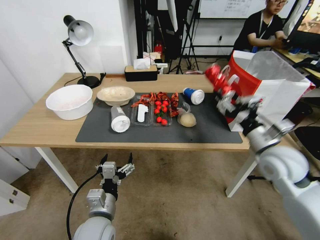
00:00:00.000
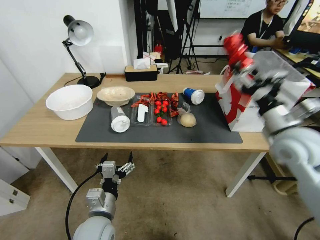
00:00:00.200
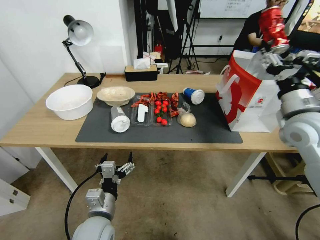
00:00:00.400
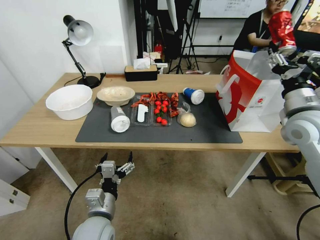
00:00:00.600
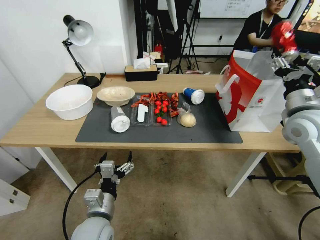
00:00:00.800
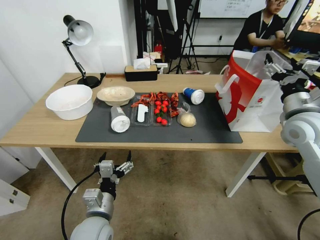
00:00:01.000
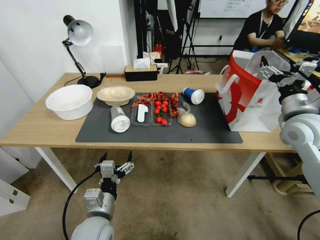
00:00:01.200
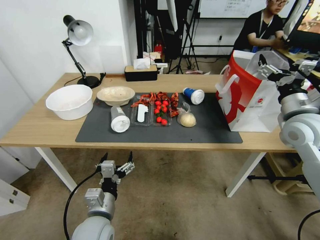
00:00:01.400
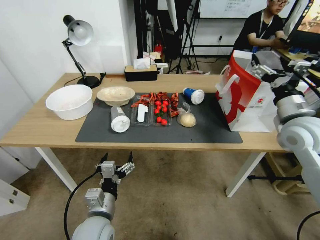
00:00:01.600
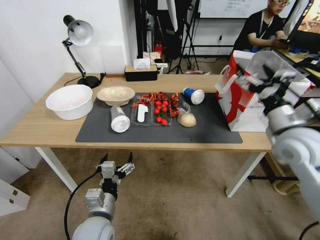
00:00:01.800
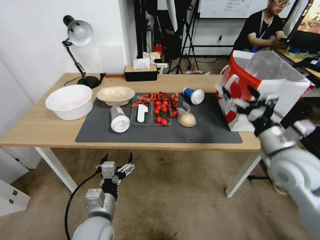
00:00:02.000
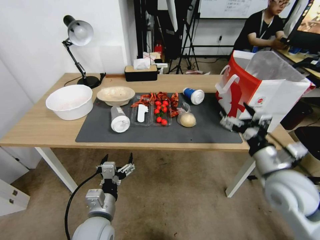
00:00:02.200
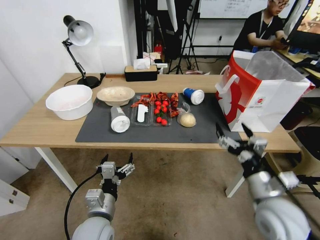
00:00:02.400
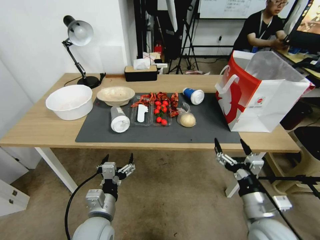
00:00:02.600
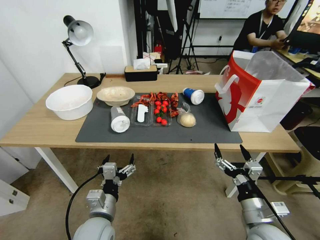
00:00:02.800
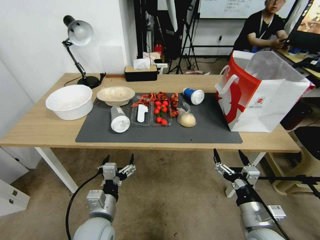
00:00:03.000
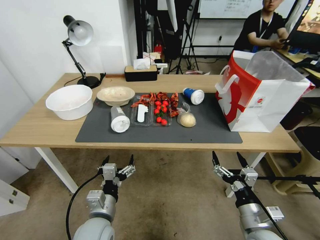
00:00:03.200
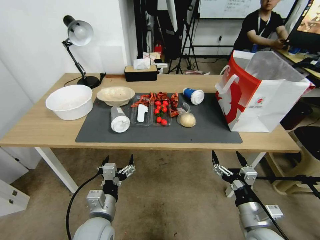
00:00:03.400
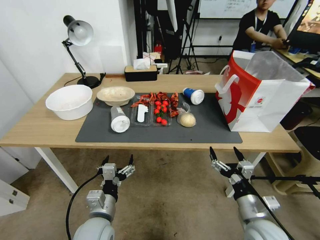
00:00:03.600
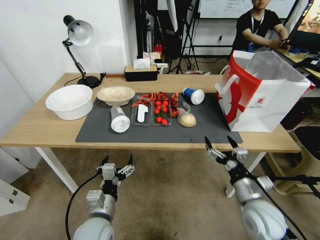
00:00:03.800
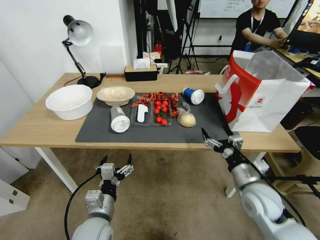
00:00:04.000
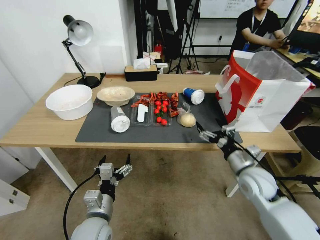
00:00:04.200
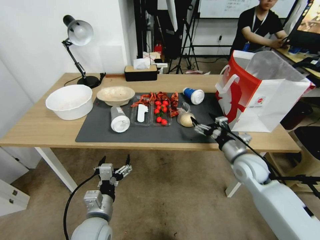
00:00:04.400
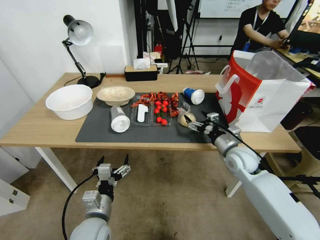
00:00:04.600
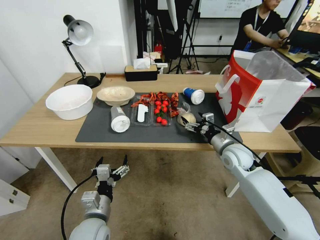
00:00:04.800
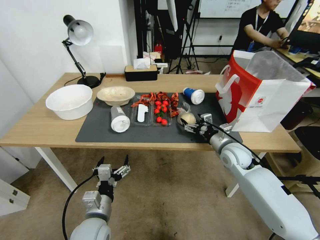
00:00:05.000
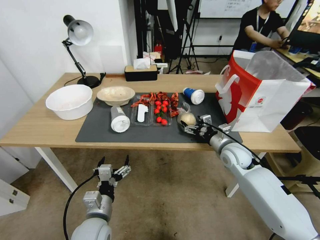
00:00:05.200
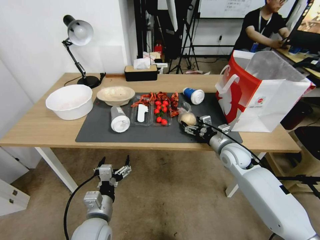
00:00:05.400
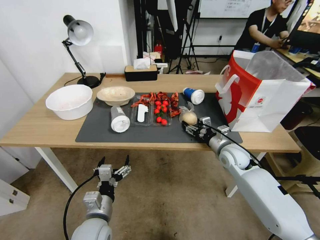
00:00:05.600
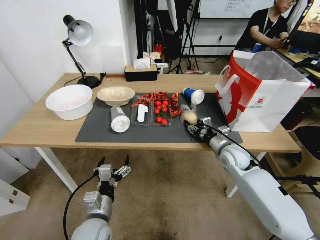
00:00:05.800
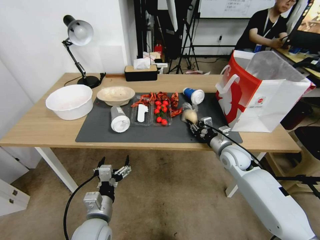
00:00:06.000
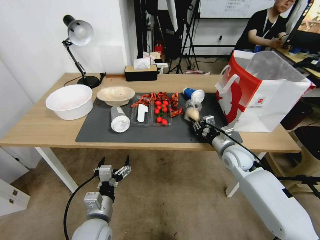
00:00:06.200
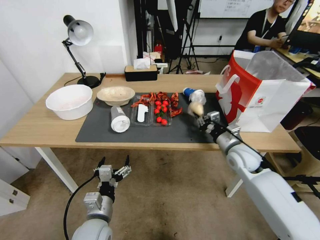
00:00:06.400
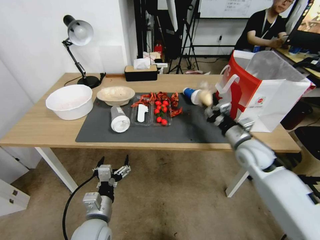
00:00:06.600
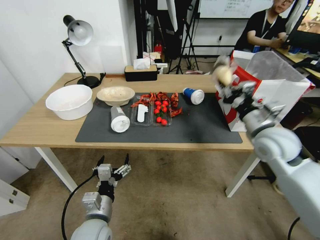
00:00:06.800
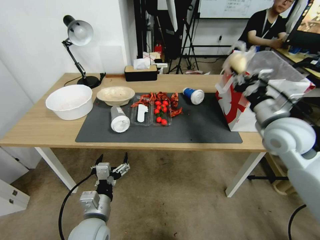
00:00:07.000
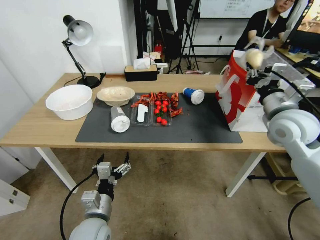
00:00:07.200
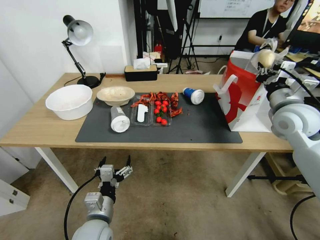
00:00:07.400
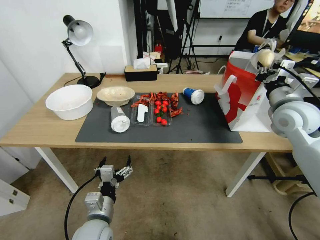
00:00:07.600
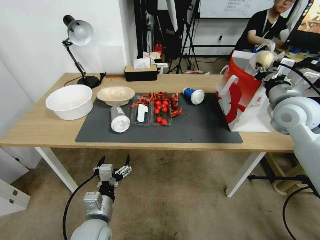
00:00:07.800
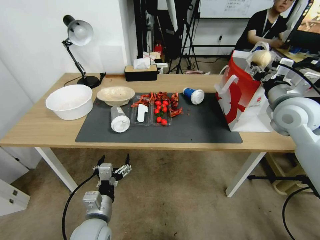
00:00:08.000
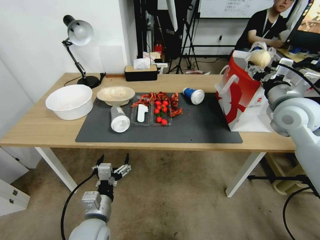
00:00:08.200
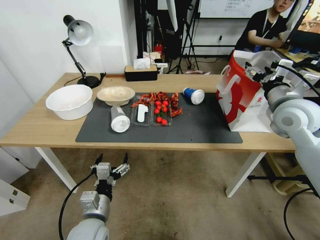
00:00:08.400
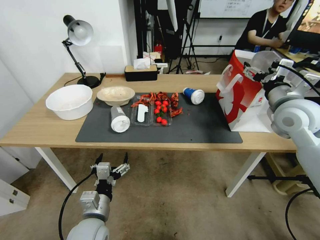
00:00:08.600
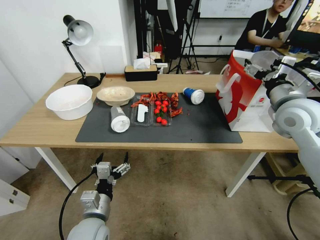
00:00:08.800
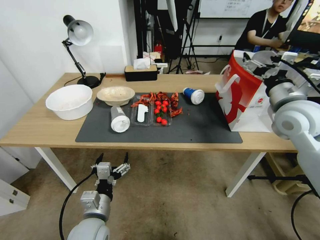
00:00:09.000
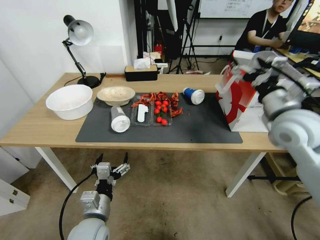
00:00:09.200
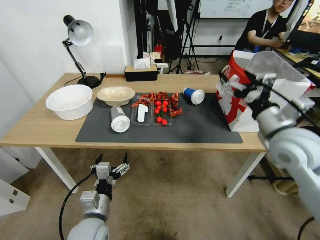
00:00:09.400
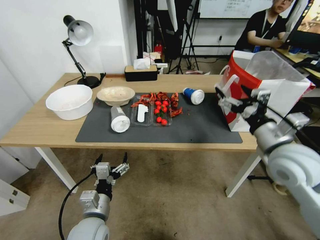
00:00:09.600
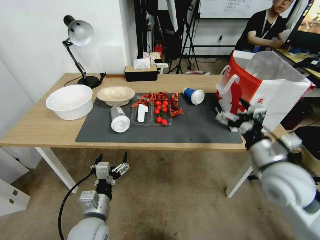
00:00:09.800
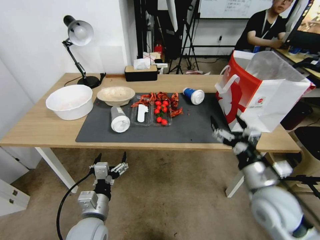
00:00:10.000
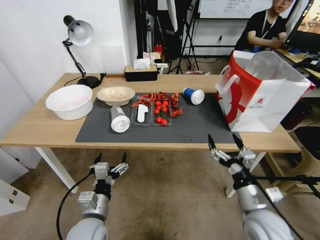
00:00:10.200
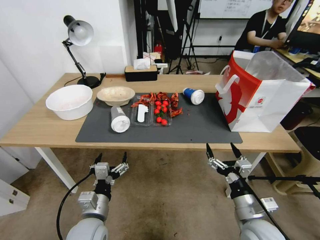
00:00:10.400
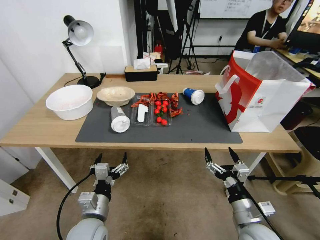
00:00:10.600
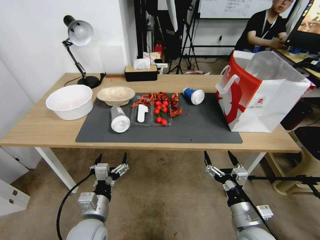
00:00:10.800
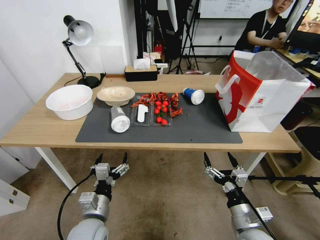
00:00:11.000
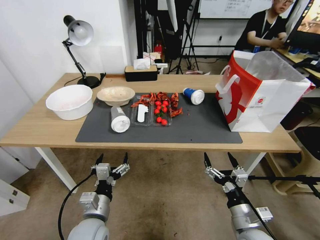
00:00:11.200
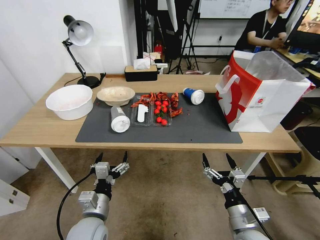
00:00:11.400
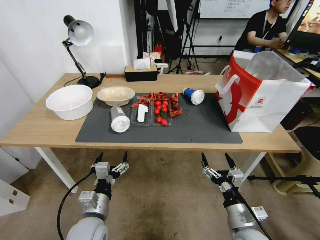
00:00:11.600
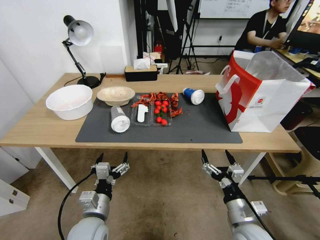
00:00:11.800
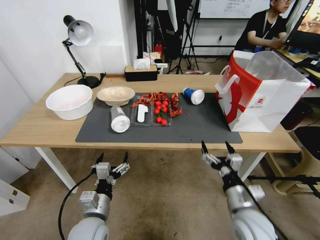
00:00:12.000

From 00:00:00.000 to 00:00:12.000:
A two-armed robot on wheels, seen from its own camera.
From 00:00:00.000 to 00:00:01.600: The right gripper moves upward, approximately 15 cm, and opens up.
From 00:00:01.600 to 00:00:03.000: The right gripper shifts about 30 cm downward, backward and to the left.
From 00:00:03.000 to 00:00:04.400: The right gripper is displaced forward by about 20 cm.
From 00:00:04.400 to 00:00:06.000: The right gripper heads forward, covering about 5 cm, and closes.
From 00:00:06.000 to 00:00:07.600: The right gripper heads upward and to the right, covering about 25 cm.
From 00:00:07.600 to 00:00:09.000: The right gripper opens its fingers.
From 00:00:09.000 to 00:00:10.400: The right gripper heads downward and backward, covering approximately 30 cm.
From 00:00:10.400 to 00:00:12.000: There are only small adjustments of the grippers.

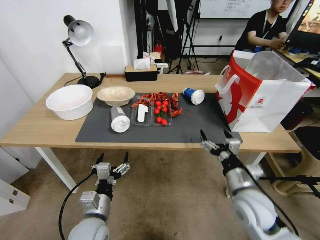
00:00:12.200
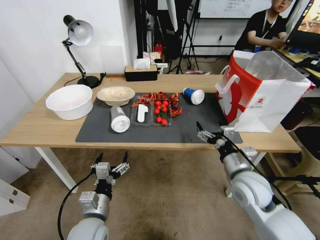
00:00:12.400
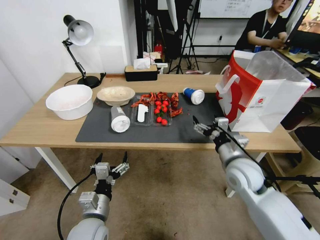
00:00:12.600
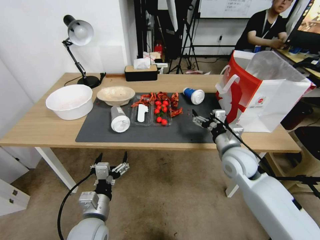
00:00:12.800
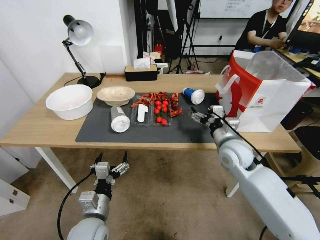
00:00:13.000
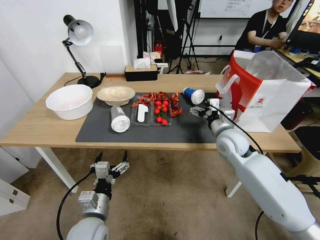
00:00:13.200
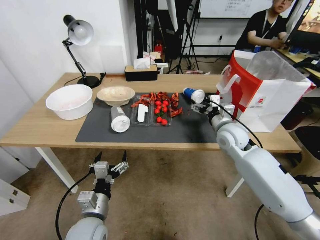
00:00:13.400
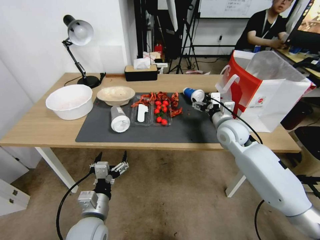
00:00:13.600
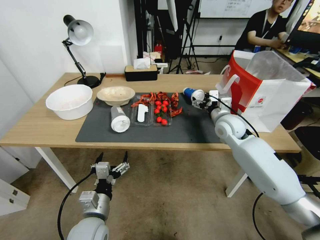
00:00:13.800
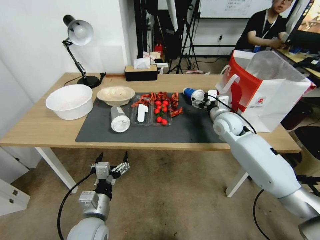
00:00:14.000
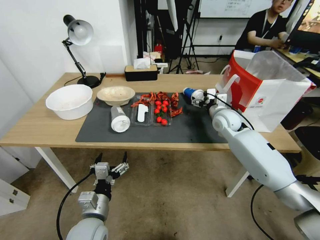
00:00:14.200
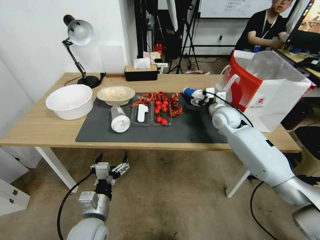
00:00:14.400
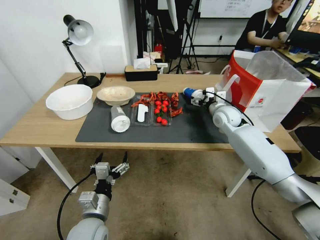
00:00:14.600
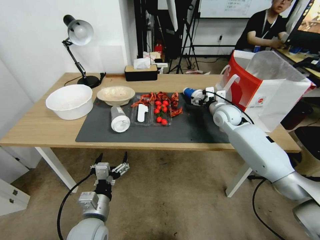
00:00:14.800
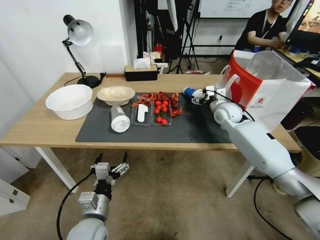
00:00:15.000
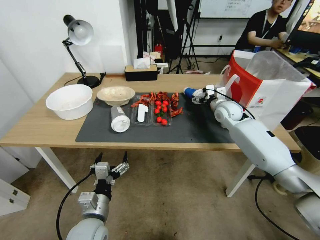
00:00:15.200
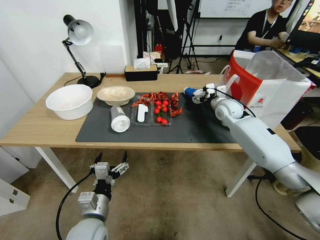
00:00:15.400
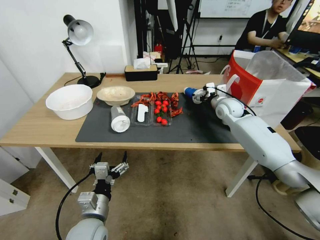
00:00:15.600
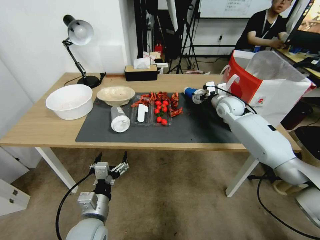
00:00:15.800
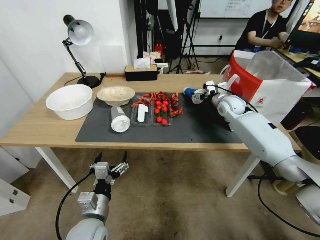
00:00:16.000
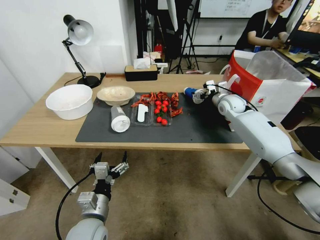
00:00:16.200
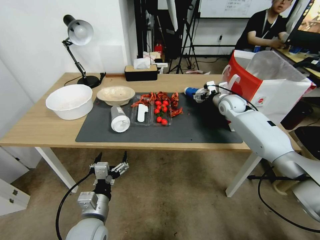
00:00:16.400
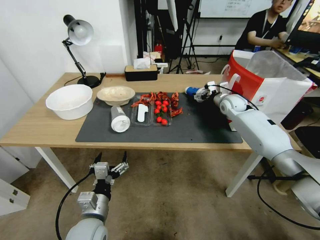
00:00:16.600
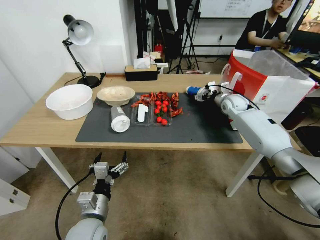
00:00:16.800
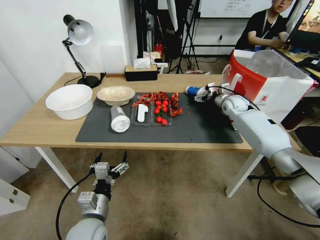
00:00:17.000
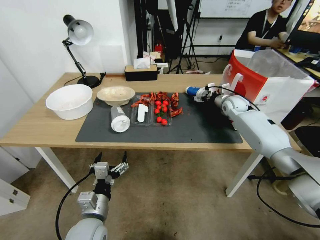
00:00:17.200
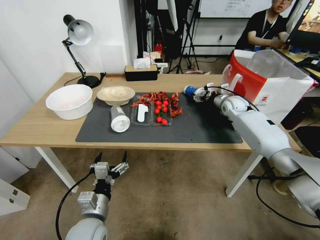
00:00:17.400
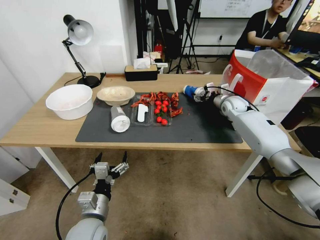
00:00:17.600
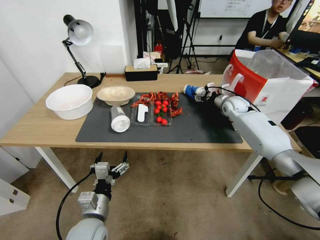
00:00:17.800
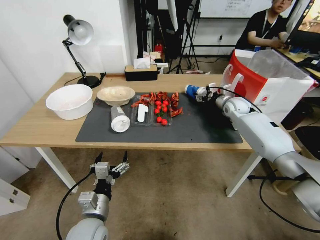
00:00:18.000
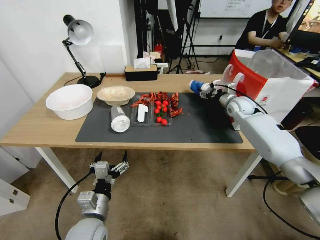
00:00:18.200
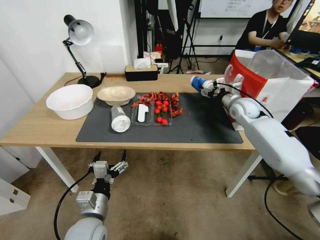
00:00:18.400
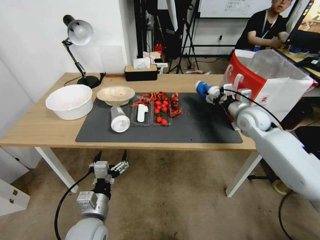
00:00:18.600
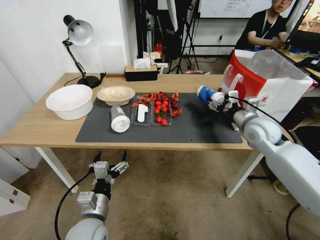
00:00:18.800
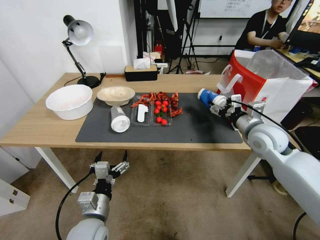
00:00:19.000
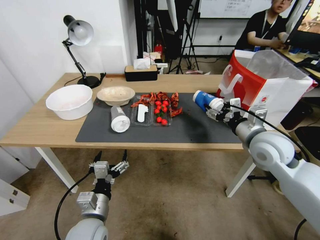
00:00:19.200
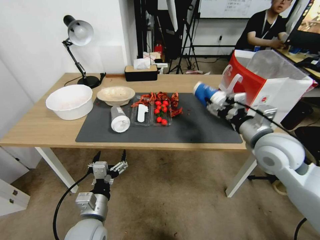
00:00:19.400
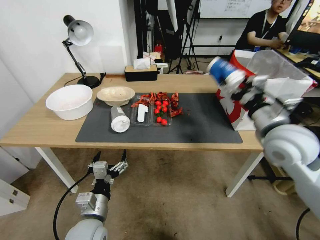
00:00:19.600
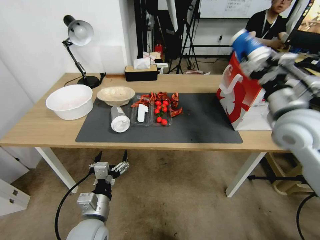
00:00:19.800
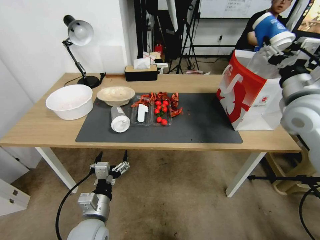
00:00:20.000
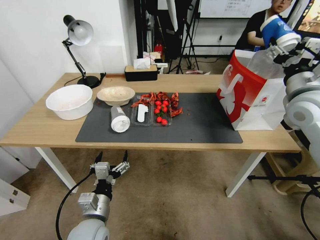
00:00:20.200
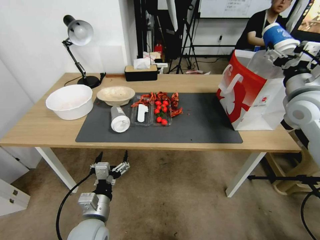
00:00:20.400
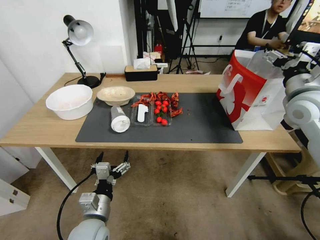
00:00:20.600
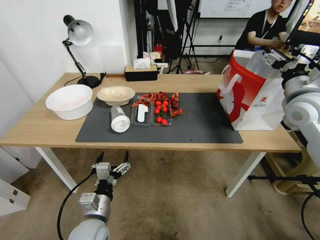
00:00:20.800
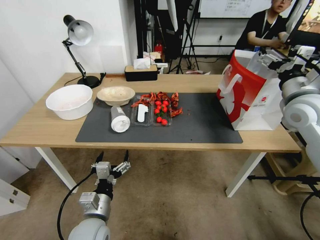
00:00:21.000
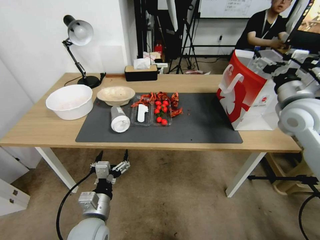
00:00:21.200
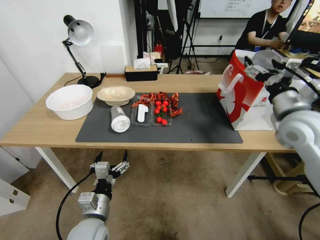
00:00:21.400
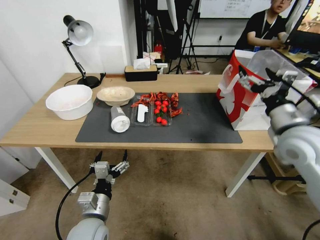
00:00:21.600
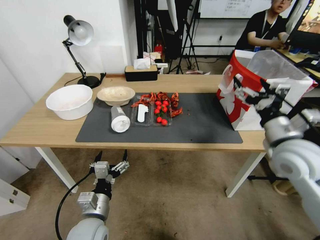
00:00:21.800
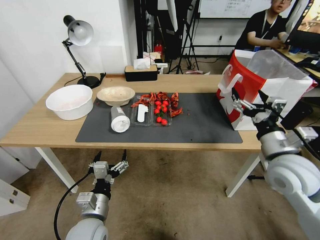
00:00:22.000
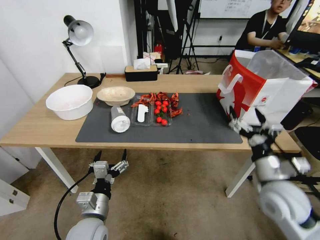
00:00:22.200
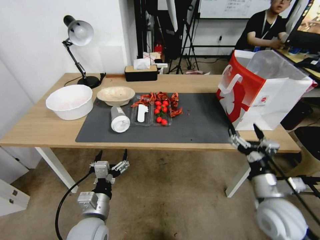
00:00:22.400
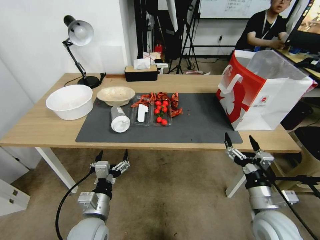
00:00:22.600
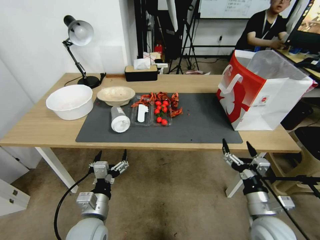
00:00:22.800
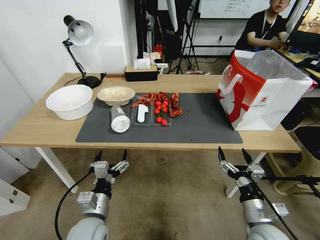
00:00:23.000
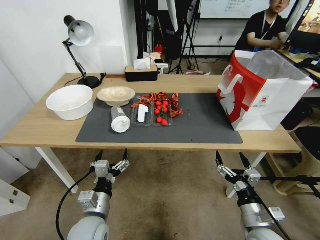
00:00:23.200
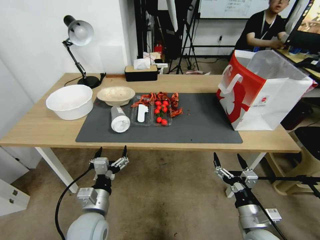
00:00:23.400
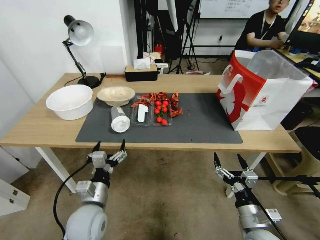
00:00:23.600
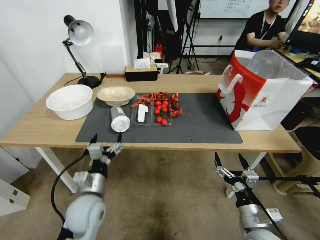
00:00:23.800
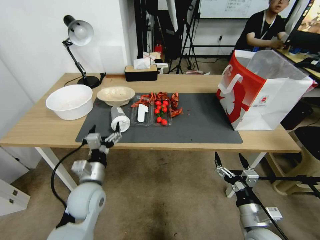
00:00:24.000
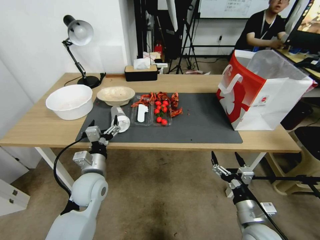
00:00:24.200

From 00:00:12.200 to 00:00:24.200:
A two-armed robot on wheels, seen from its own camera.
From 00:00:12.200 to 00:00:13.800: The right gripper travels forward by some 25 cm.
From 00:00:13.800 to 00:00:15.200: The right gripper goes roughly 10 cm forward.
From 00:00:15.200 to 00:00:16.600: The right gripper goes about 5 cm forward.
From 00:00:16.600 to 00:00:18.200: The right gripper closes.
From 00:00:18.200 to 00:00:19.800: The right gripper is displaced backward and upward by approximately 30 cm.
From 00:00:19.800 to 00:00:21.200: The right gripper ends up about 5 cm from where it was, and opens.
From 00:00:21.200 to 00:00:22.600: The right gripper travels downward and backward by some 25 cm.
From 00:00:22.600 to 00:00:24.200: The left gripper moves forward, about 10 cm. Meanwhile the right gripper shifts approximately 10 cm downward and backward.
